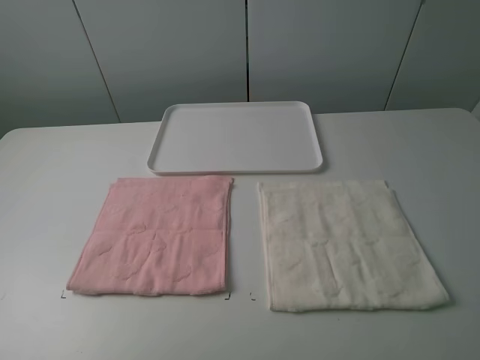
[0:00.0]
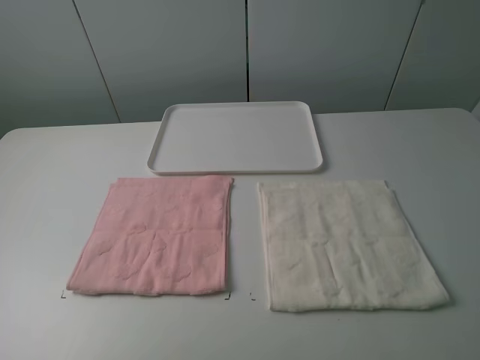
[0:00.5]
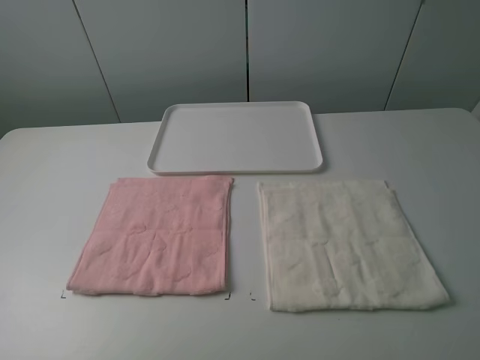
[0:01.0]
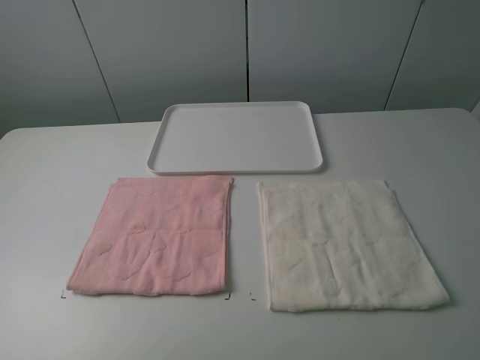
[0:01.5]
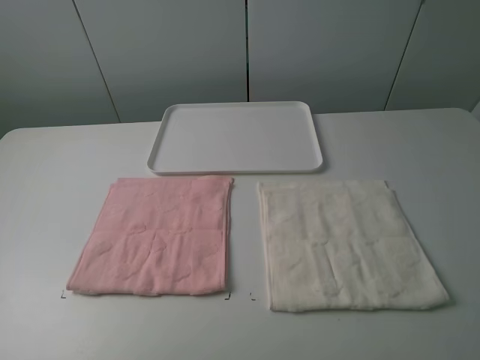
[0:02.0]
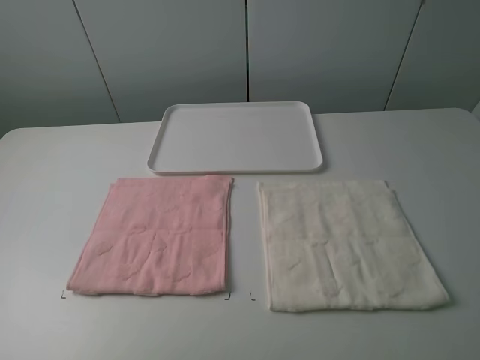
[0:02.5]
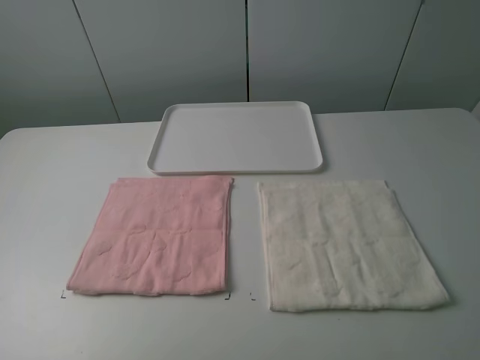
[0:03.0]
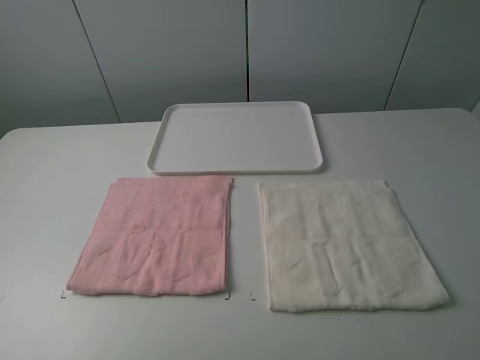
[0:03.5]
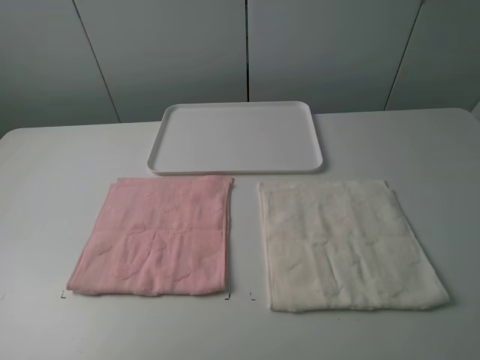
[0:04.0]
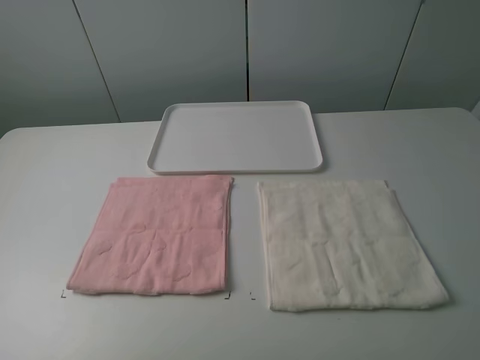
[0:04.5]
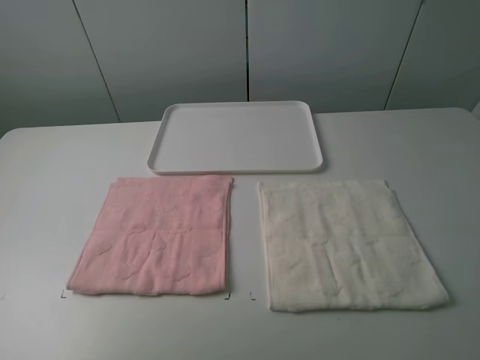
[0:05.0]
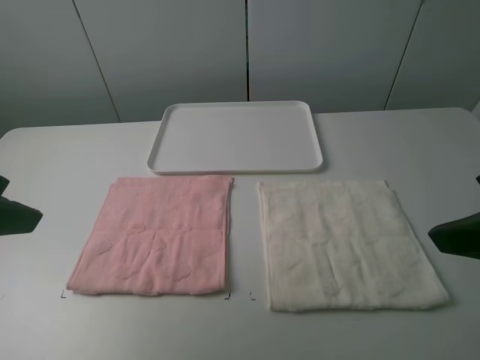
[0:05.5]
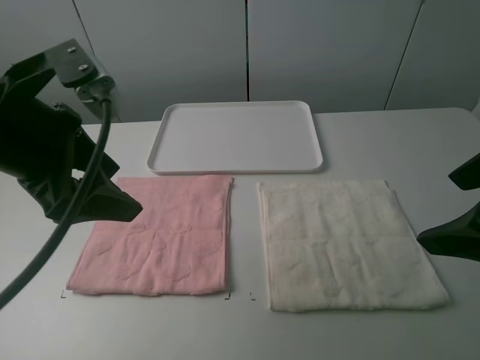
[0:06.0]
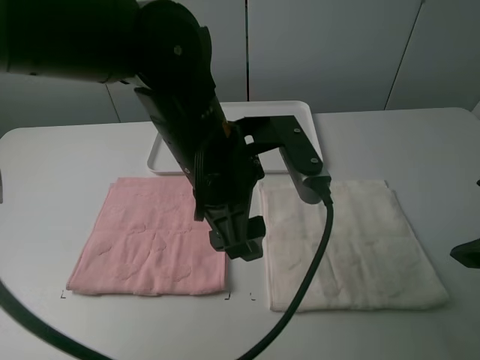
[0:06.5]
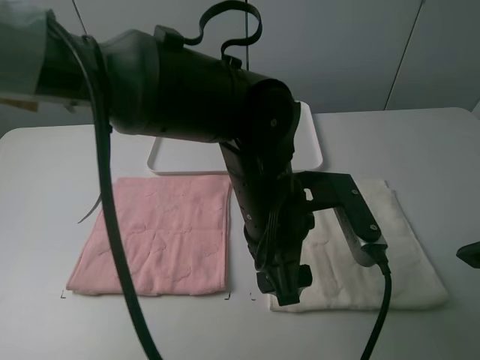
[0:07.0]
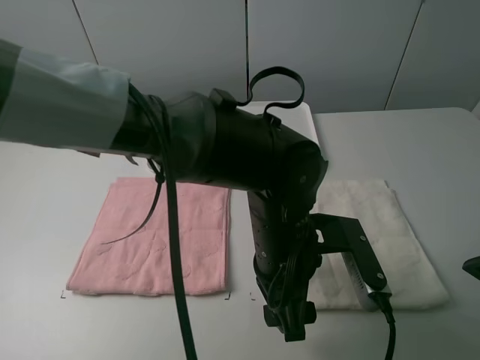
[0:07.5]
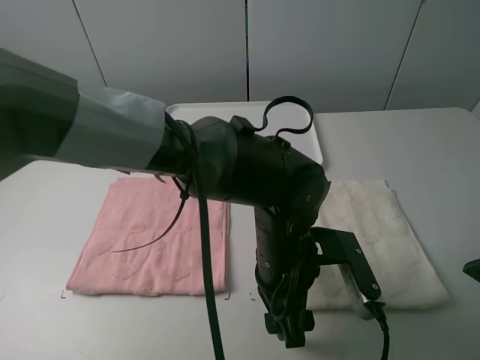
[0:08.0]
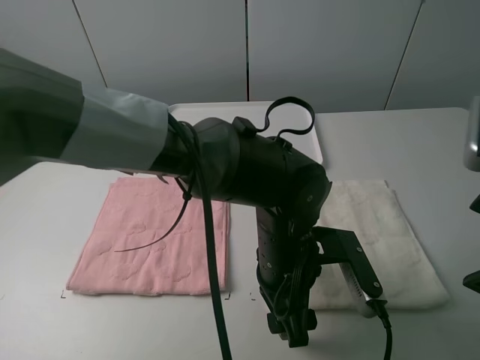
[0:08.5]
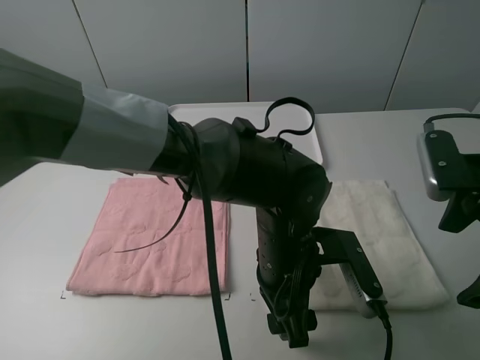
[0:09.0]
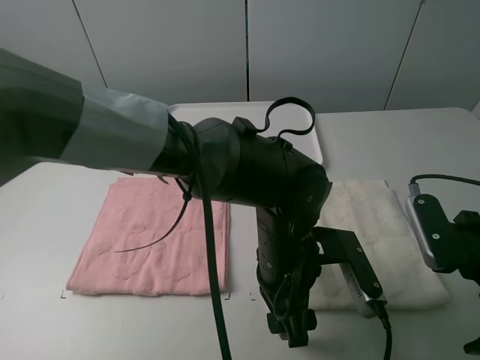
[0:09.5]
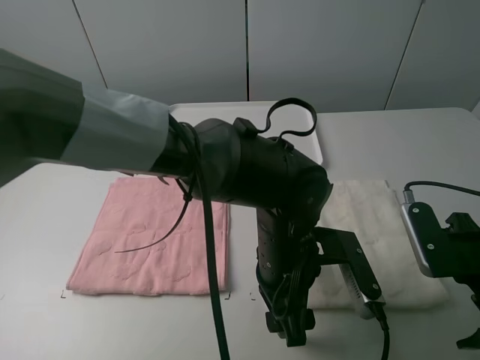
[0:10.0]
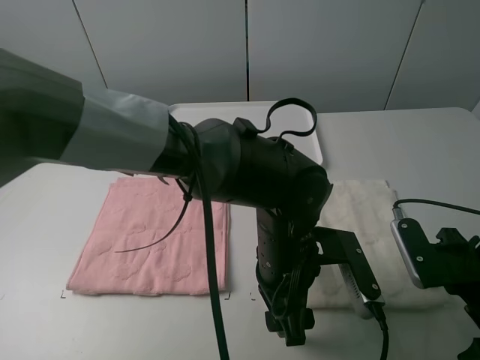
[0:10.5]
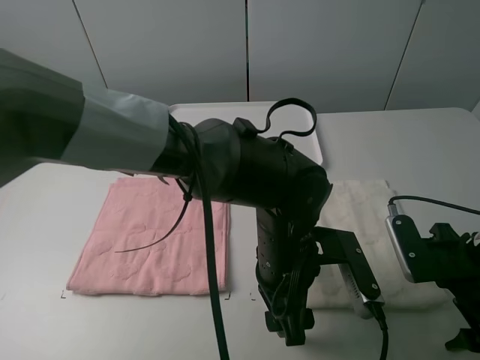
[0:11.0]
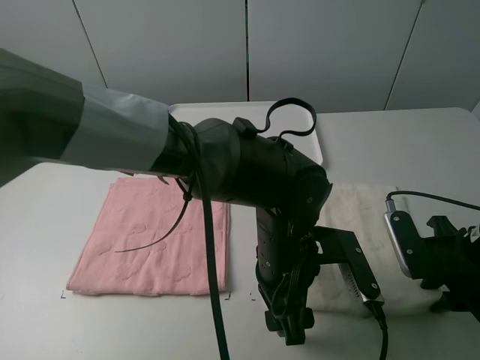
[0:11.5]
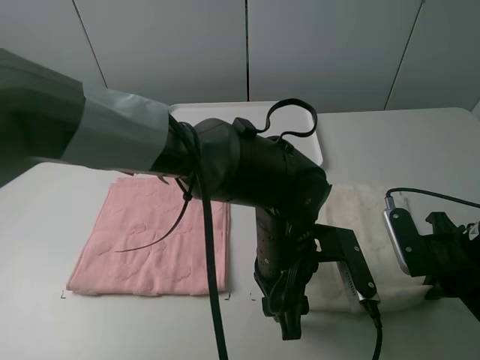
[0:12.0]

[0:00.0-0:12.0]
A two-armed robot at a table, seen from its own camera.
Task of the whole recording: fold one of the towels by two grippers and place it on the tray,then fold another towel by two grippers and place it on the folded towel.
0:00.0 to 0:04.0: Neither gripper changes place.
0:04.0 to 0:06.0: The right gripper goes approximately 15 cm forward, while the left gripper heads forward and to the right, covering roughly 25 cm.
0:06.0 to 0:08.0: The left gripper is displaced to the right and downward by roughly 30 cm.
0:08.0 to 0:10.0: The right gripper moves downward, about 15 cm.
0:10.0 to 0:12.0: The right gripper closes its fingers.

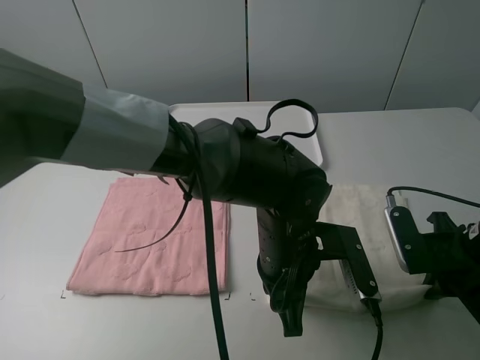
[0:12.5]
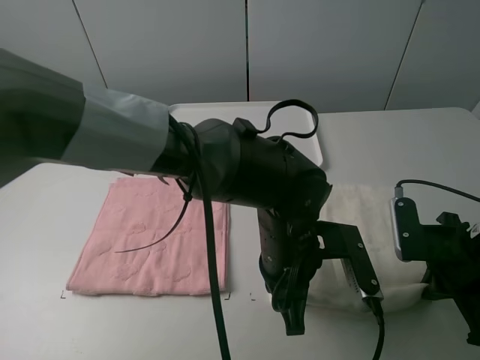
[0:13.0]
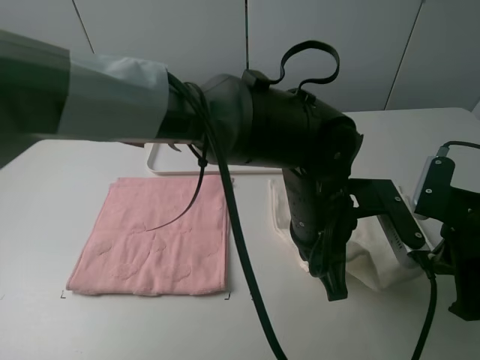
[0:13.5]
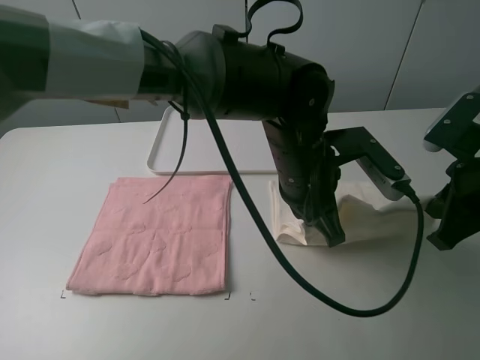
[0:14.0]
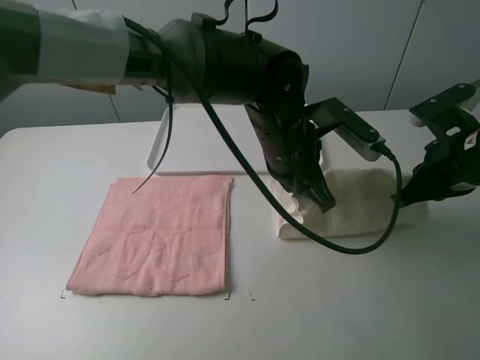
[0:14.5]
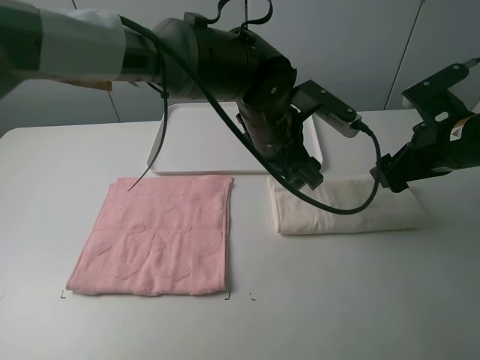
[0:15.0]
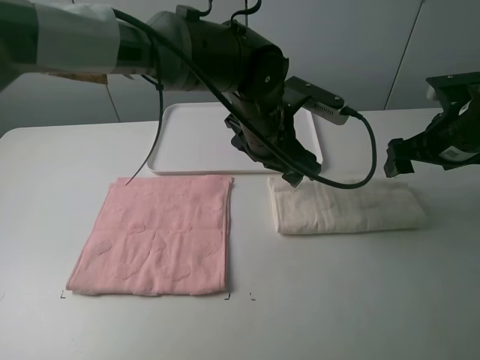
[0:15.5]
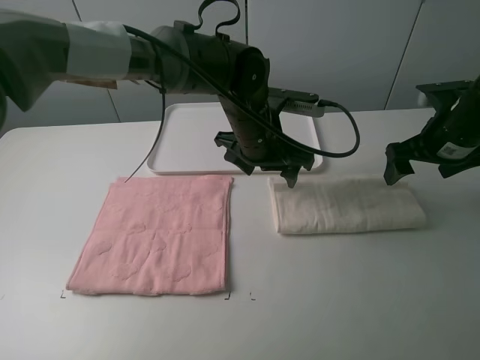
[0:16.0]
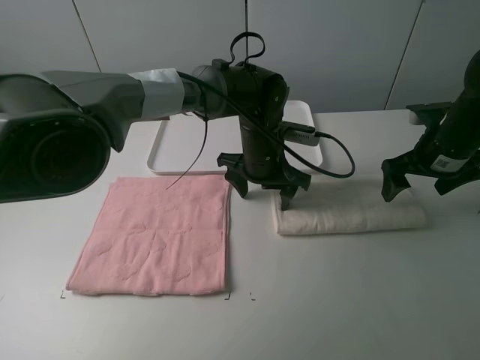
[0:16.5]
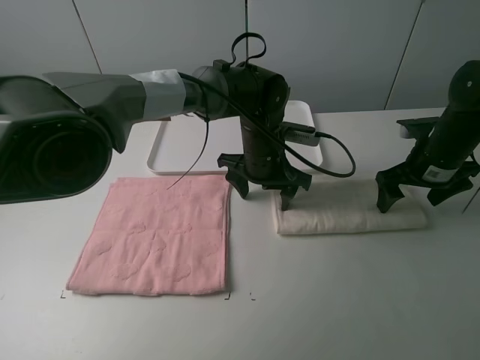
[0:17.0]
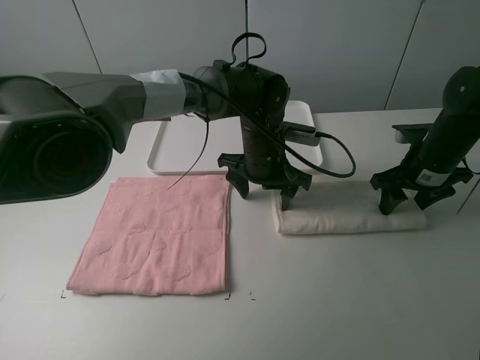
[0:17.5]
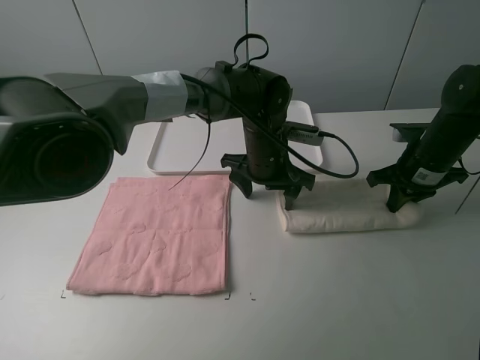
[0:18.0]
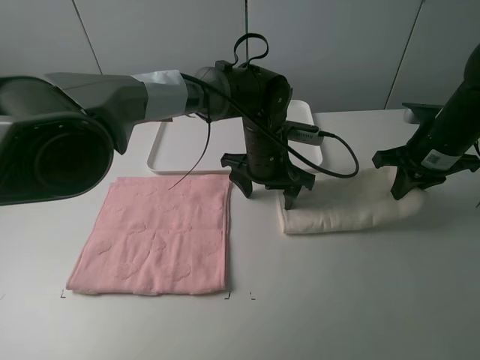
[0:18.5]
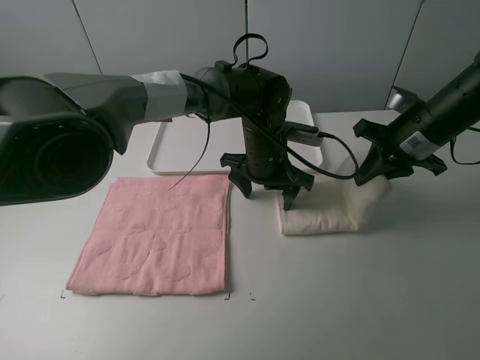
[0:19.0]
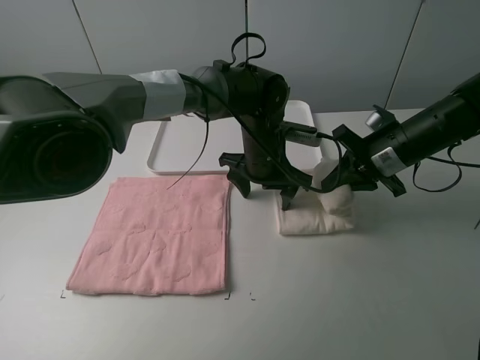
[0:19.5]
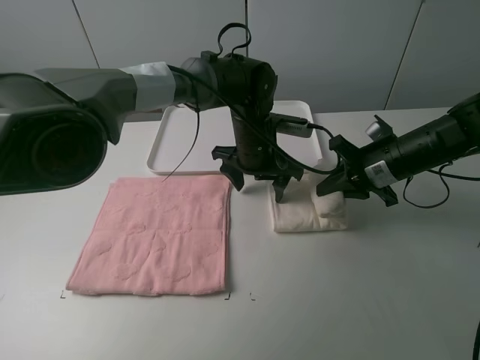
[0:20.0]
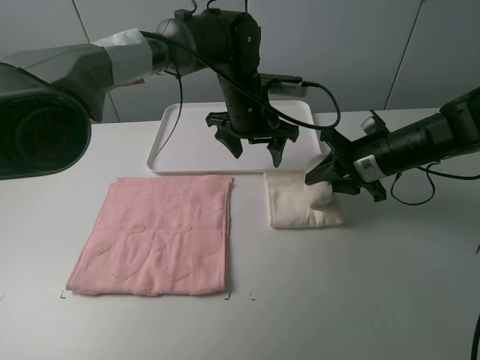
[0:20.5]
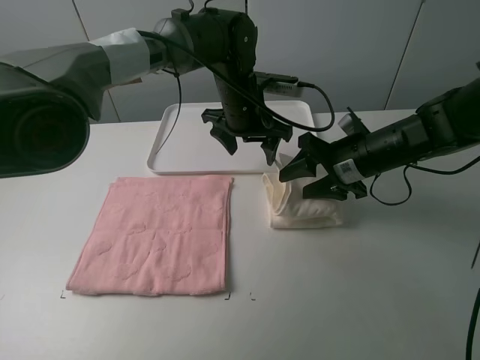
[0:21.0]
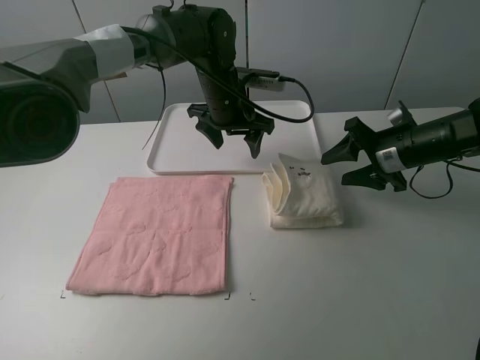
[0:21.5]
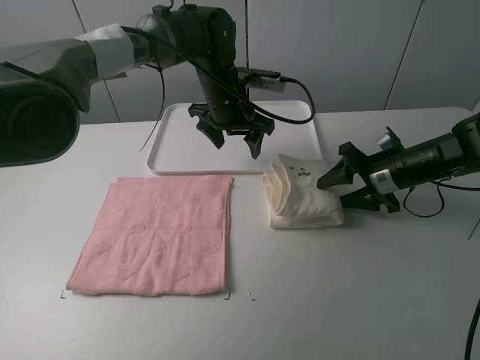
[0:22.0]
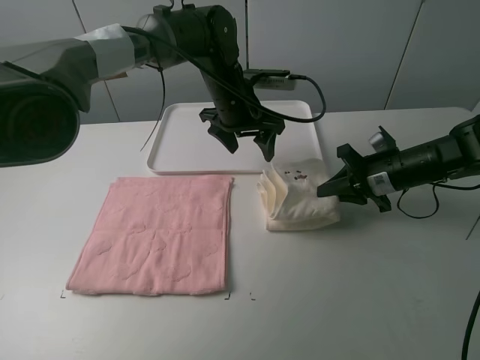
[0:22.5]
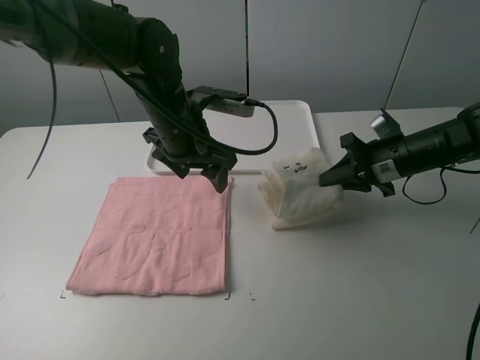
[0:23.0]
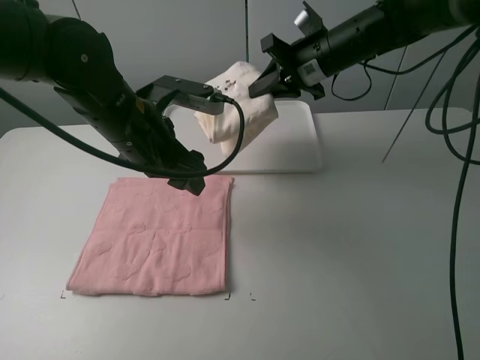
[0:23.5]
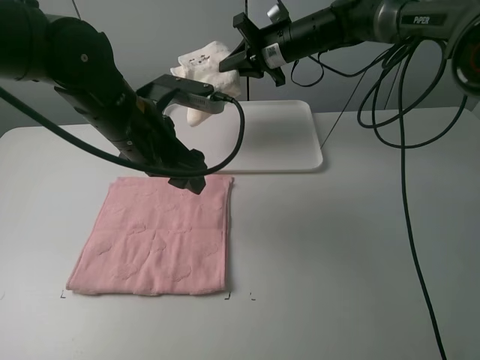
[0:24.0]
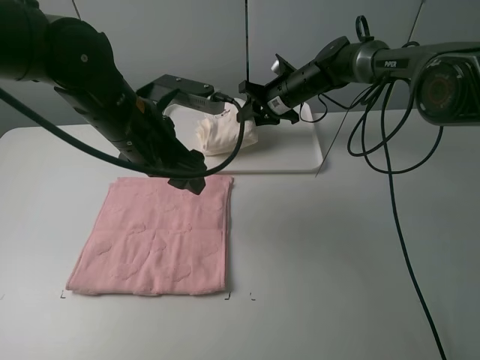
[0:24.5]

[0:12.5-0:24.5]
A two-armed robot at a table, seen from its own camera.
Task of the whole recording: fold one of the towels by two grippers and place it on the tray,then fold another towel by two grippers and place it on the folded towel.
Step, 0:12.5 to 0:15.0: Fold the white towel upwards with the left gripper.
Step, 0:15.5 to 0:16.5: Press the white towel with the left gripper.
Step, 0:17.0 to 0:18.0: Grasp the white towel with the right gripper.
Step, 0:18.5 to 0:21.5: Fold the white towel from right to left with right gripper.
0:12.5 to 0:14.5: Both grippers travel together forward and upward, roughly 10 cm.
0:14.5 to 0:16.5: The left gripper goes some 10 cm forward and downward, and opens up; the right gripper is displaced forward by approximately 10 cm, and opens.
0:16.5 to 0:18.5: The right gripper closes up.
0:18.5 to 0:20.5: The left gripper shifts some 5 cm upward. The right gripper shifts approximately 5 cm to the left.
0:20.5 to 0:22.5: The right gripper ends up some 5 cm from where it was.
0:22.5 to 0:24.5: The right gripper shifts about 25 cm forward and to the left, and opens its fingers; the left gripper goes about 20 cm backward and to the left.

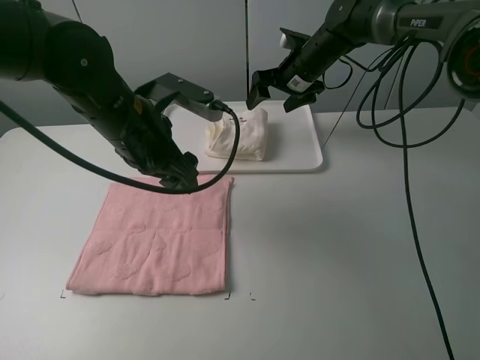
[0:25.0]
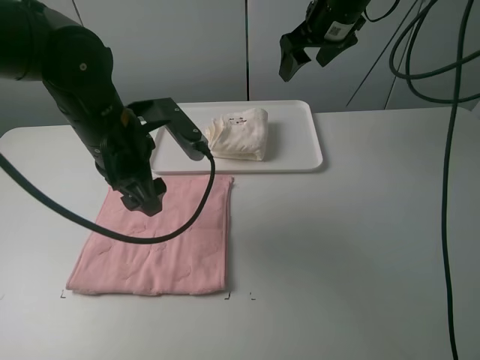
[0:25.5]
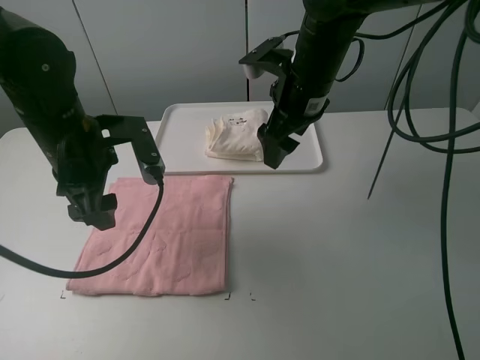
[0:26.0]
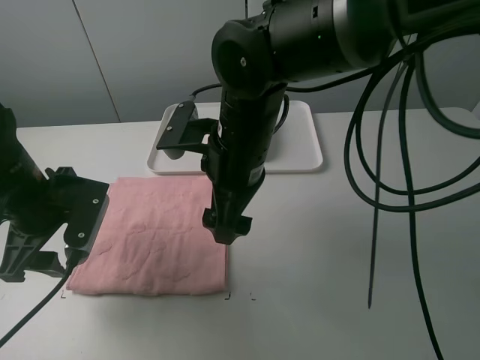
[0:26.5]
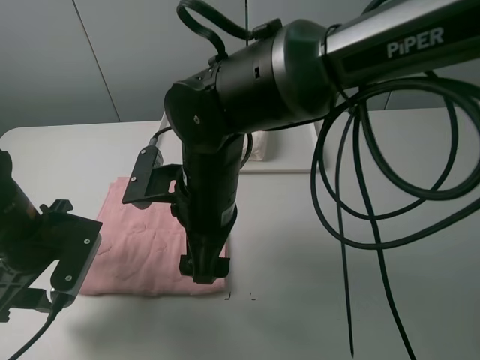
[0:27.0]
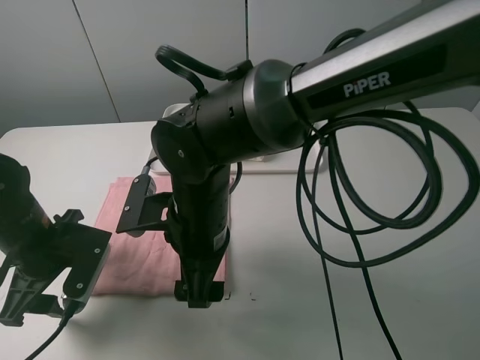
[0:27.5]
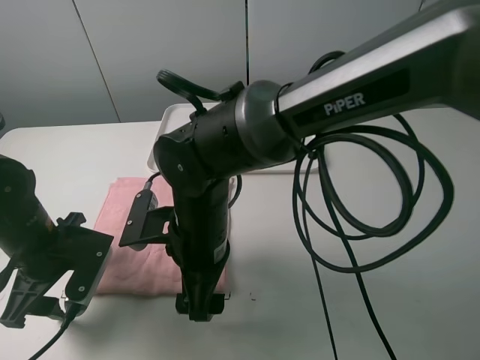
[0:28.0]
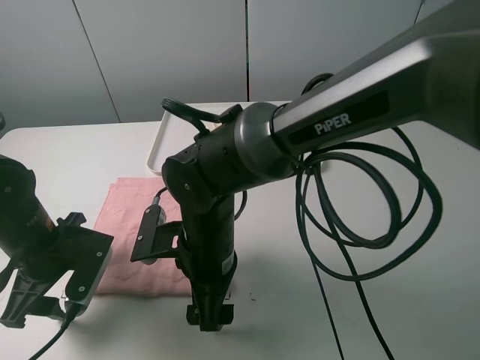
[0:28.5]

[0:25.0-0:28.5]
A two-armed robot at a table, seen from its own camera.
Task of the whole recording: fold one of the towels by two grippers and place it on the tray,then fold another towel by two grippers and place it on the folded towel.
0:25.0 to 0:27.0: The left gripper travels to the left, backward and downward by some 15 cm. The right gripper shifts some 35 cm backward and to the left.
0:27.0 to 0:28.5: The right gripper is displaced downward by approximately 5 cm.
